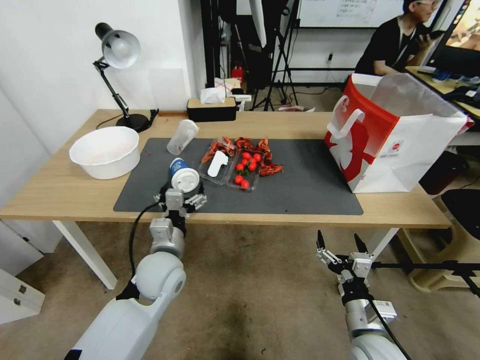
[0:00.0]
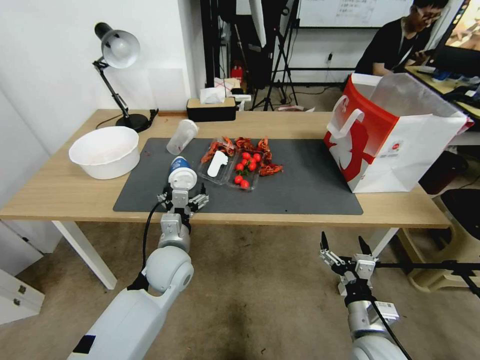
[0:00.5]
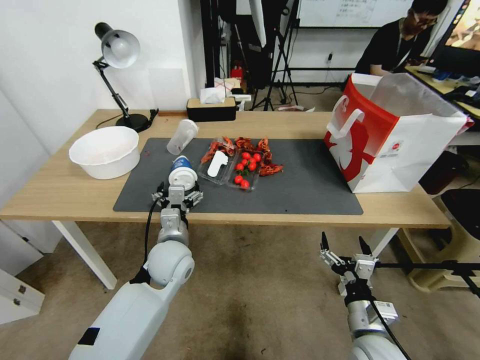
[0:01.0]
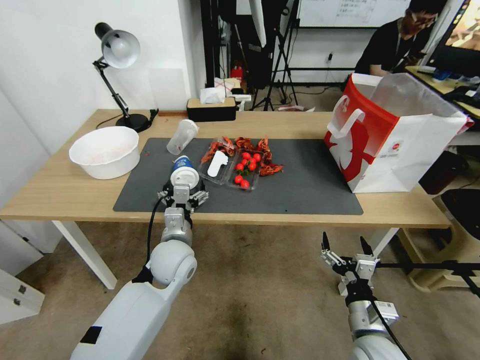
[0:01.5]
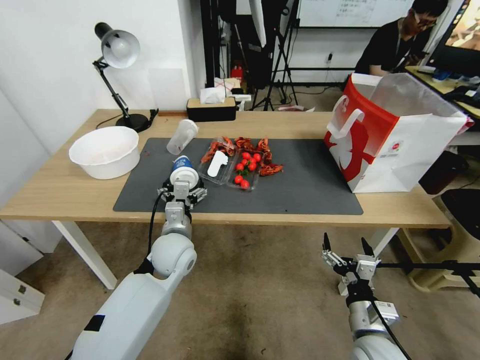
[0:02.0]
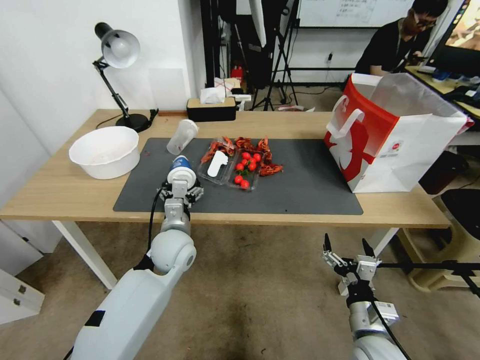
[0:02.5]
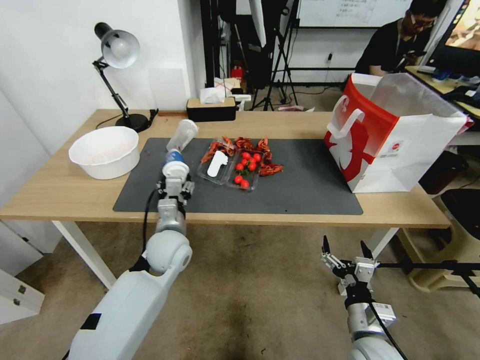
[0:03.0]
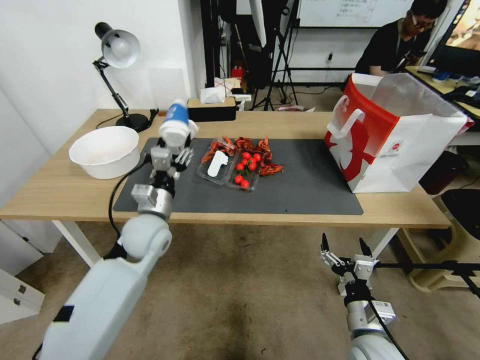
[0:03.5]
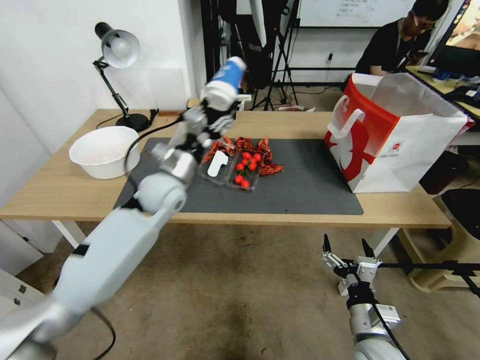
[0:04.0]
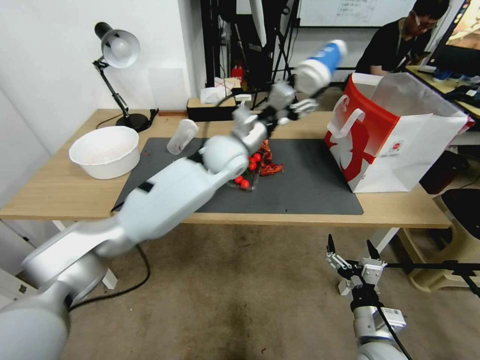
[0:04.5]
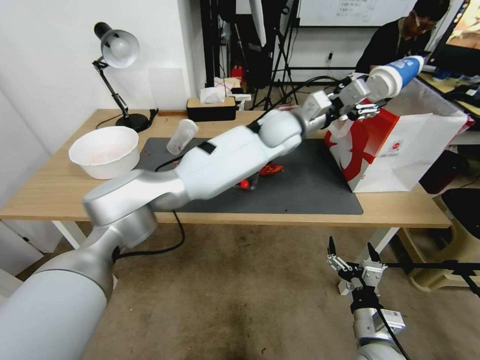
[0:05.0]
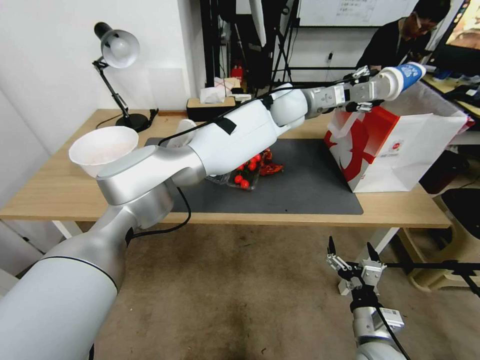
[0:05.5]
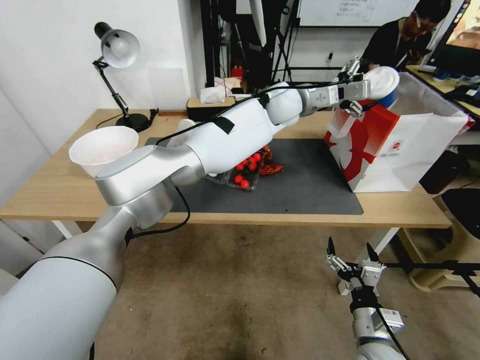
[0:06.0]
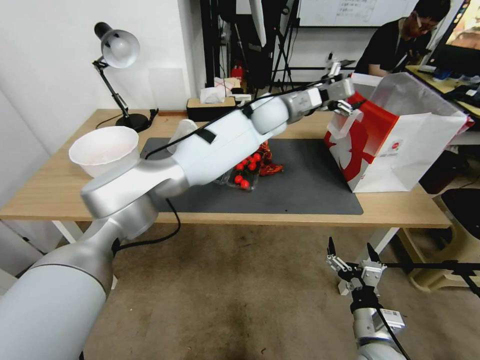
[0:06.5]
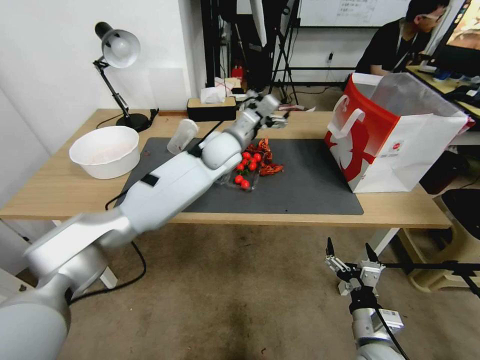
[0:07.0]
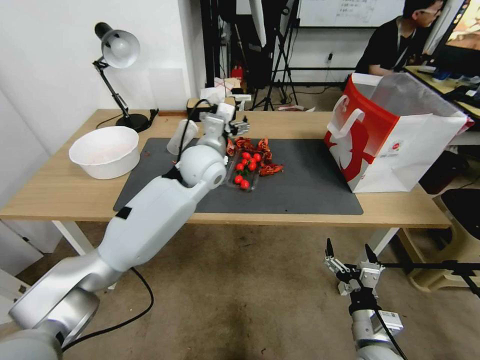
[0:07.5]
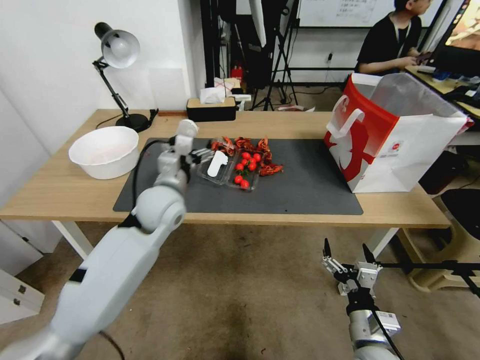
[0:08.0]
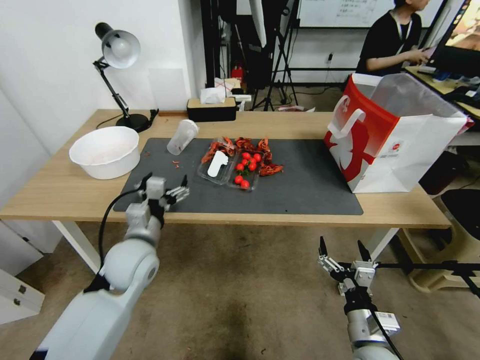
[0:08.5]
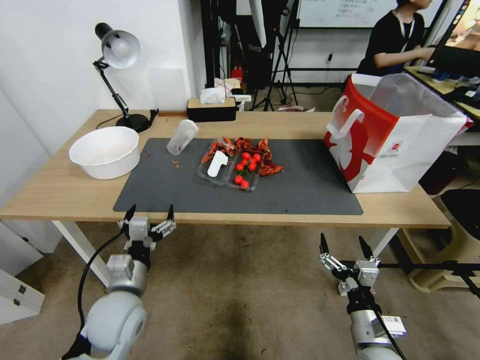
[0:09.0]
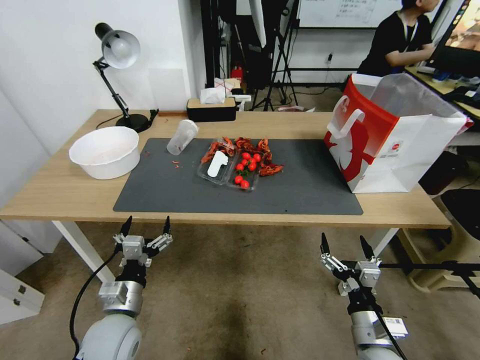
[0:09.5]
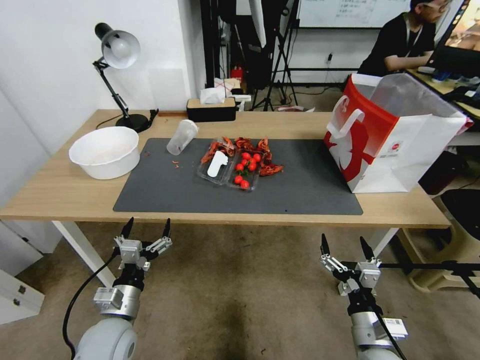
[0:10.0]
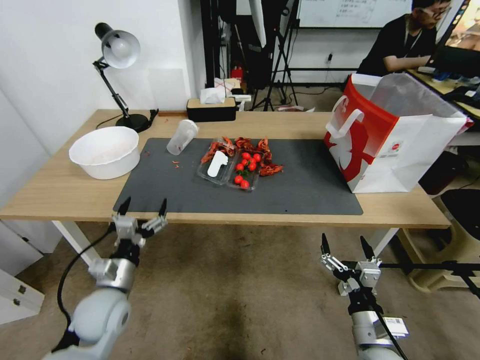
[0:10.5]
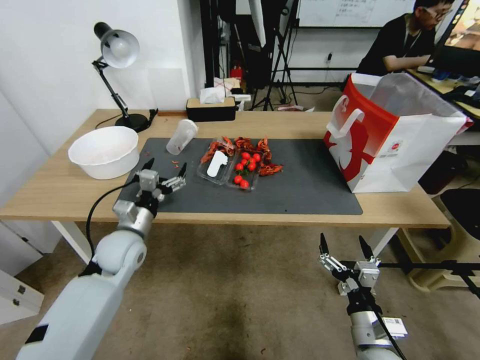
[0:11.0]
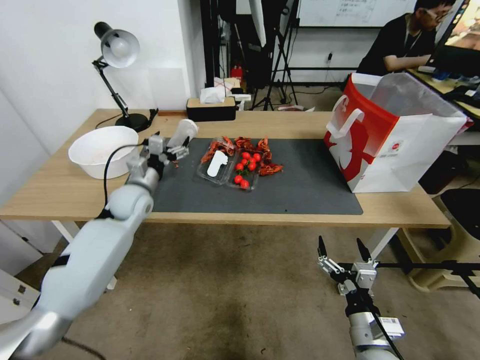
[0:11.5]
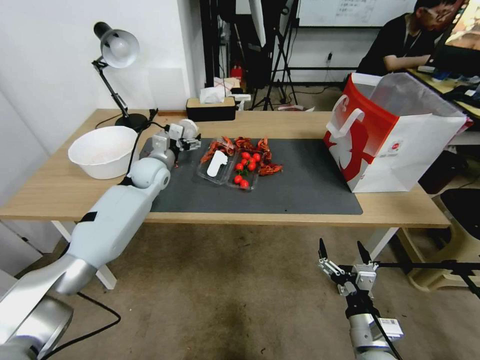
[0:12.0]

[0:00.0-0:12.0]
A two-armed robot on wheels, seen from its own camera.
0:00.0 to 0:02.0: The left gripper moves roughly 5 cm.
0:02.0 to 0:04.0: The left gripper goes some 5 cm to the left, and closes up.
0:04.0 to 0:06.0: The left gripper moves to the right, forward and upward, some 40 cm, and opens up.
0:06.0 to 0:08.0: The left gripper shifts about 35 cm to the left, backward and downward.
0:08.0 to 0:10.0: The left gripper is displaced backward, downward and to the left by roughly 30 cm.
0:10.0 to 0:12.0: The left gripper travels forward by approximately 35 cm.

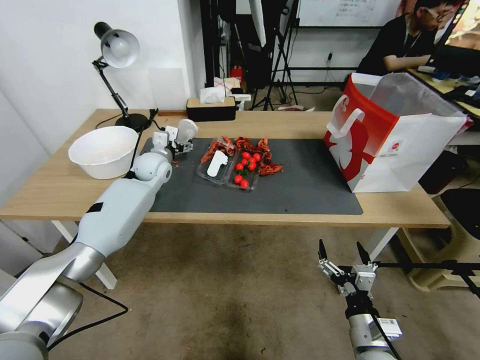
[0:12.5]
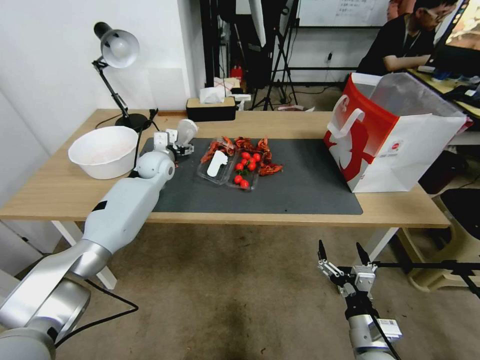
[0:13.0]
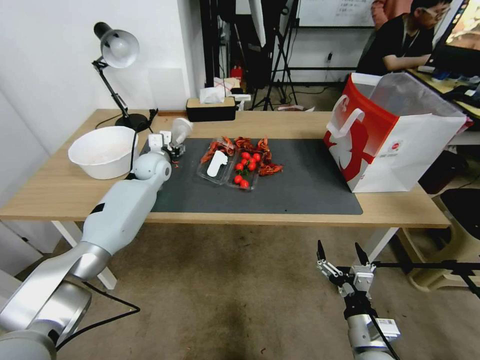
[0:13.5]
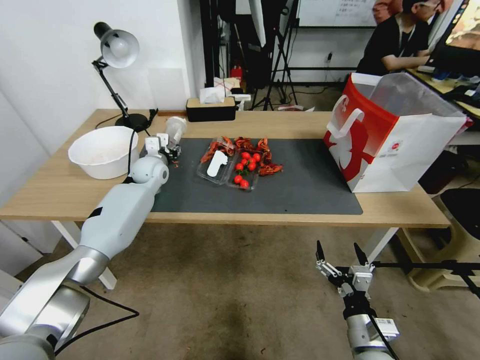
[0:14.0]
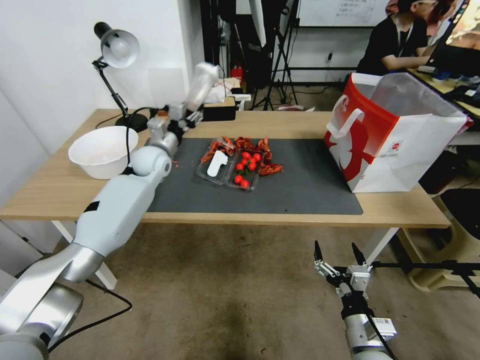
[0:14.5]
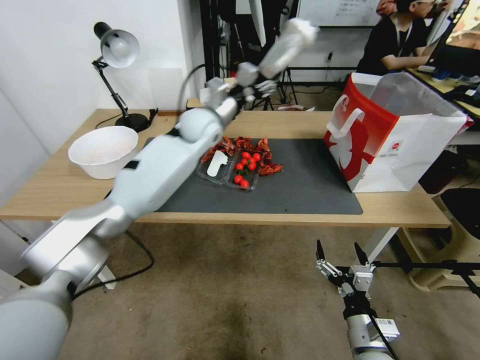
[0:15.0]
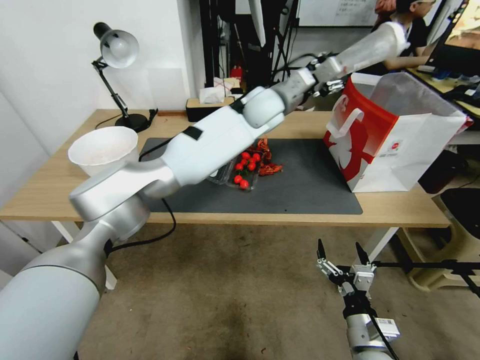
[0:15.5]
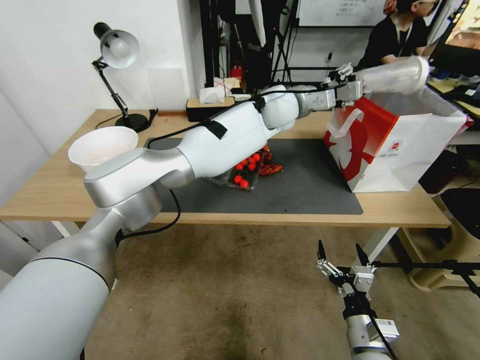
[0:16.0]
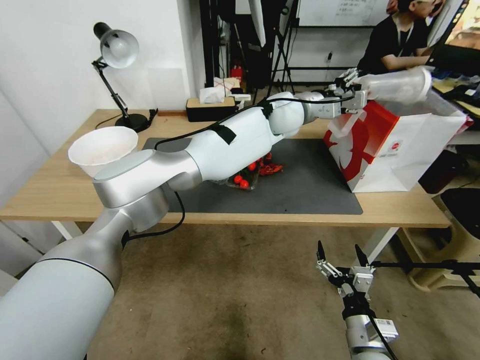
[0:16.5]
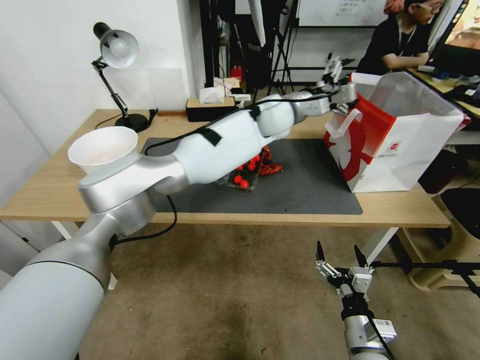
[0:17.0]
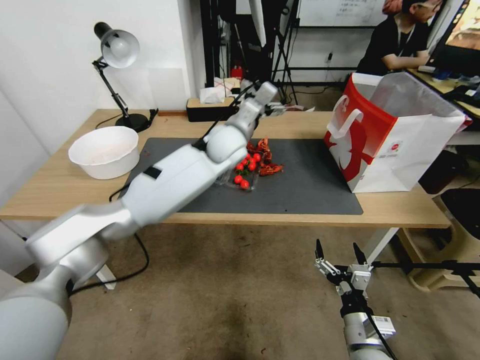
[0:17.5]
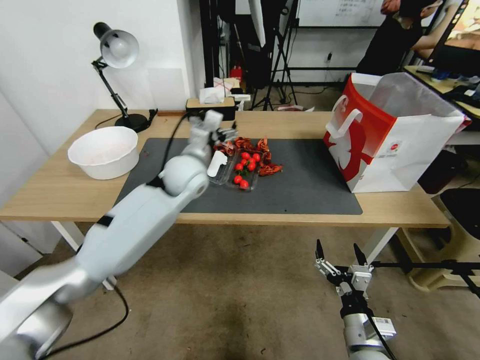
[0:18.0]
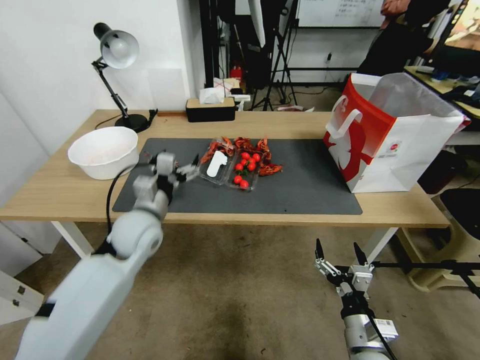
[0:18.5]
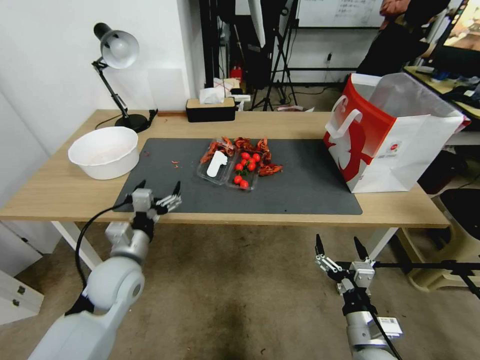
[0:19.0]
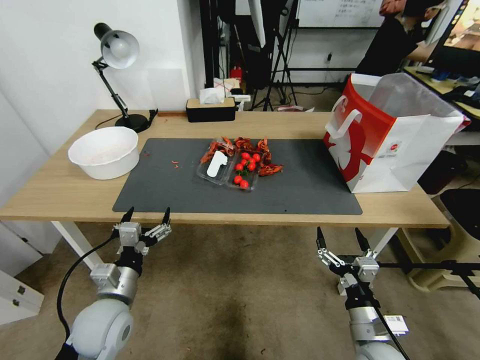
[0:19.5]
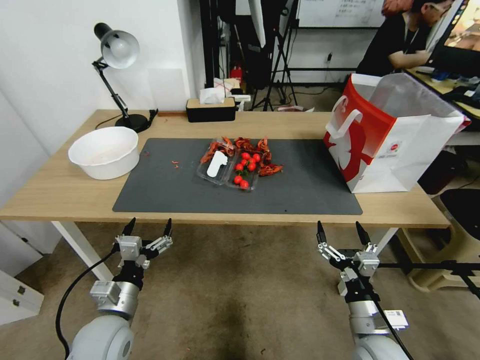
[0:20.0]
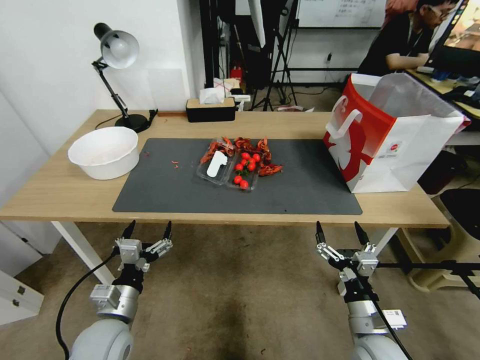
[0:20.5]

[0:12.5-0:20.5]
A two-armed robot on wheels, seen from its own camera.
0:12.5 to 0:14.5: The left gripper closes up.
0:14.5 to 0:16.5: The left gripper shifts approximately 35 cm to the right, and opens.
0:16.5 to 0:18.5: The left gripper heads to the left, backward and downward, covering some 35 cm, and opens.
0:18.5 to 0:20.5: The left gripper moves backward and downward, approximately 25 cm.

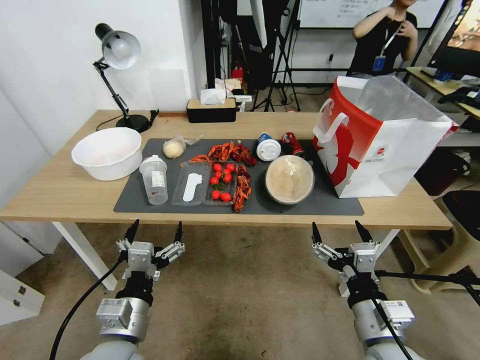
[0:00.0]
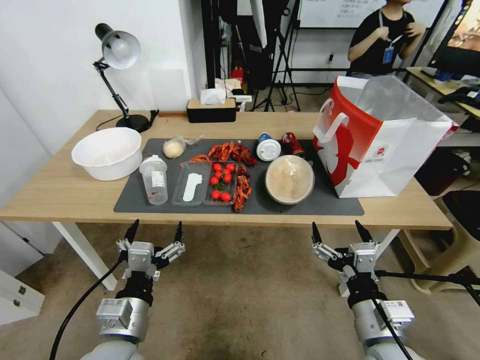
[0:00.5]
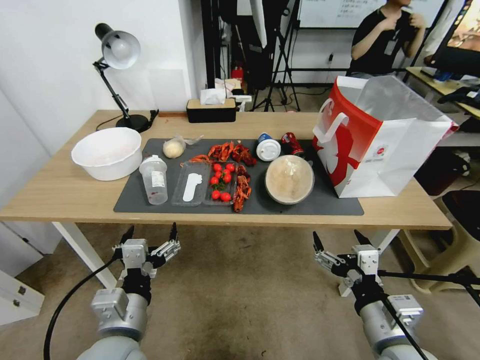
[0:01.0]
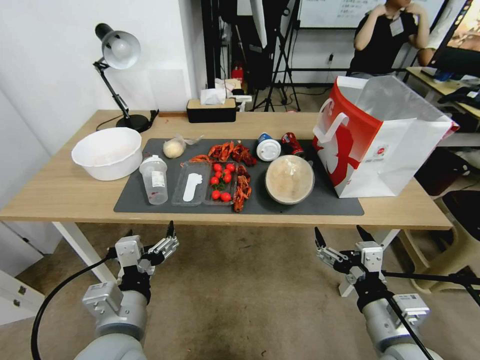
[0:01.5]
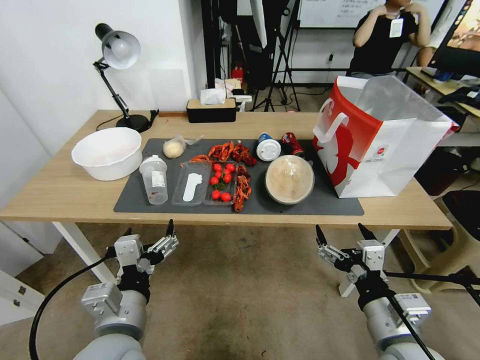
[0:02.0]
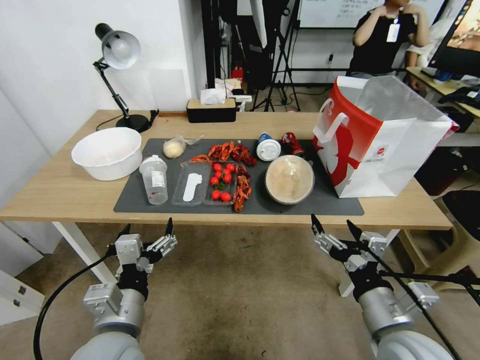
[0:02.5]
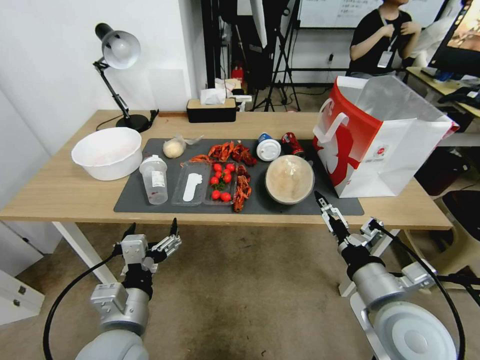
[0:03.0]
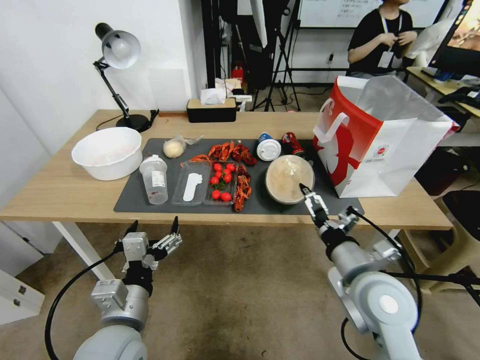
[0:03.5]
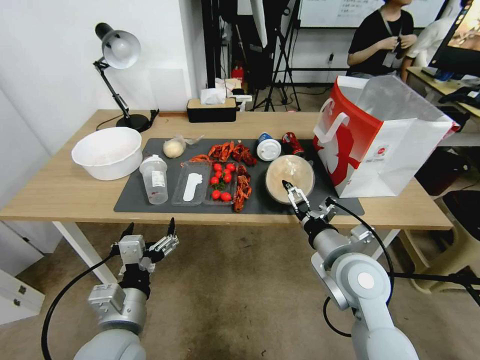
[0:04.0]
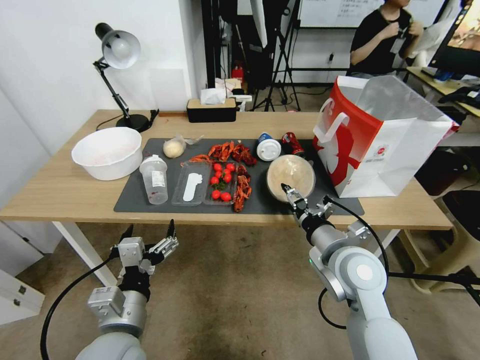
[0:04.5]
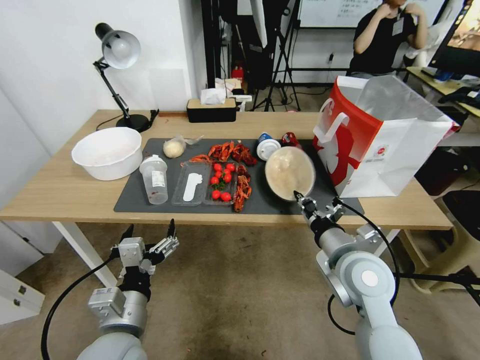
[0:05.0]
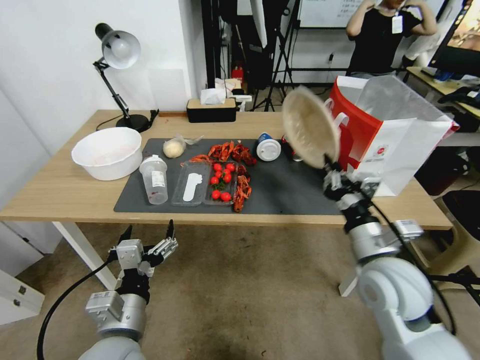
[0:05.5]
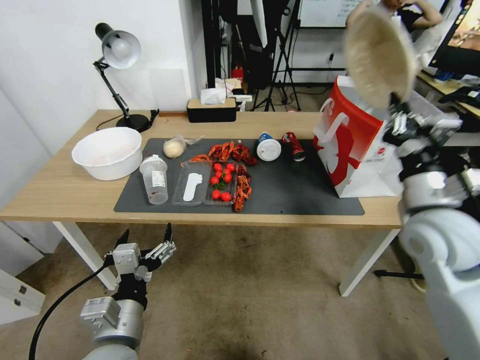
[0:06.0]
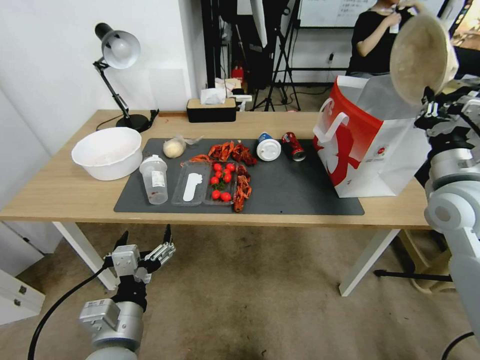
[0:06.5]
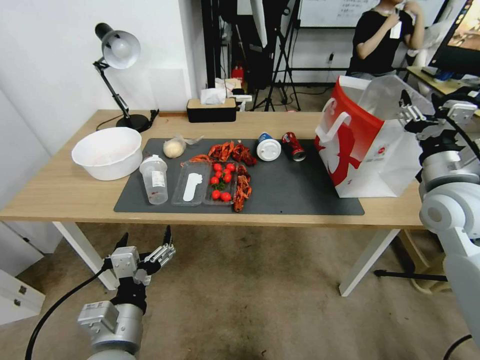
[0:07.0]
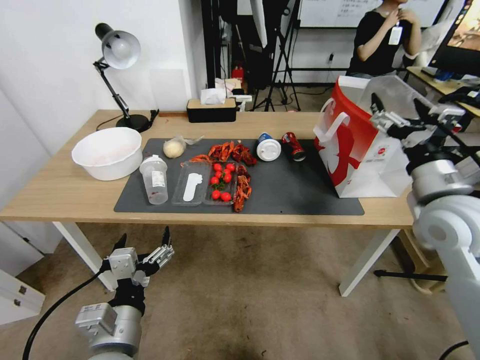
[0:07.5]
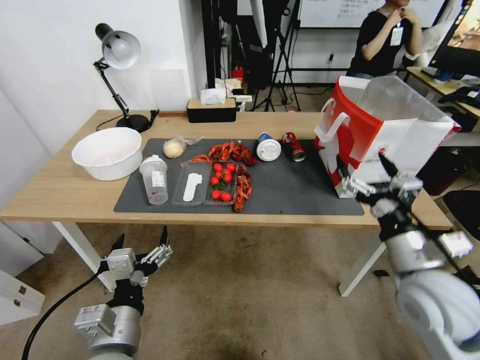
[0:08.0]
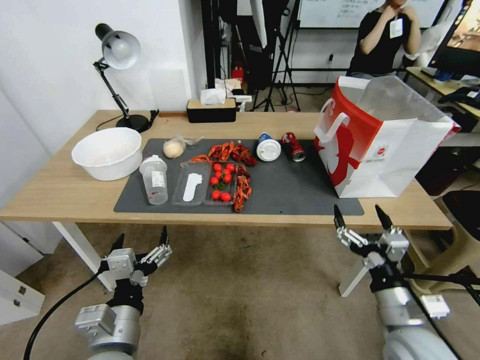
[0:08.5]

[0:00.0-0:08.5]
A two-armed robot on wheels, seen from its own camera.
0:02.0 to 0:04.0: The right gripper is displaced forward by some 15 cm.
0:04.0 to 0:06.5: The right gripper travels to the right and upward by some 20 cm, and closes its fingers.
0:06.5 to 0:08.5: The right gripper shifts approximately 20 cm downward and backward, and opens.
